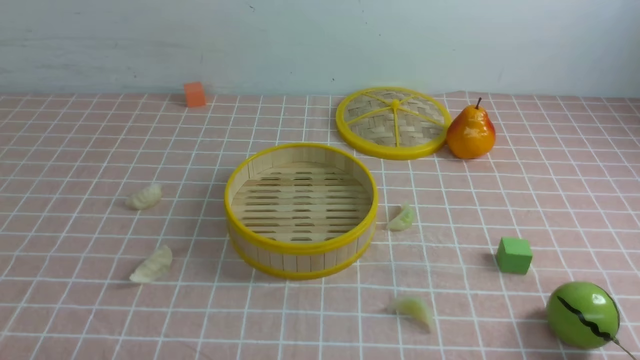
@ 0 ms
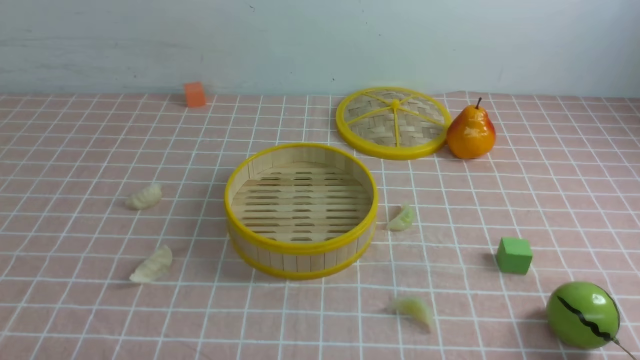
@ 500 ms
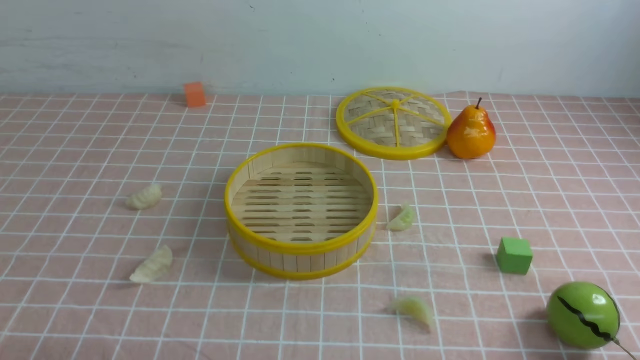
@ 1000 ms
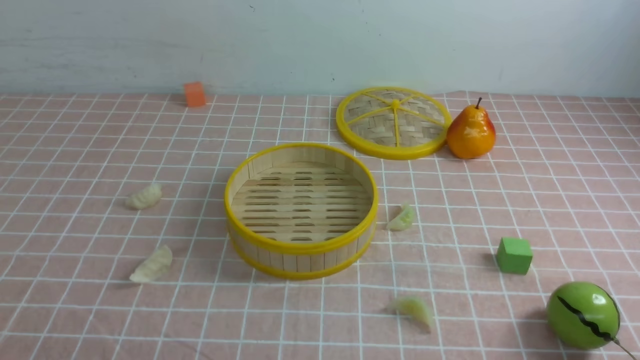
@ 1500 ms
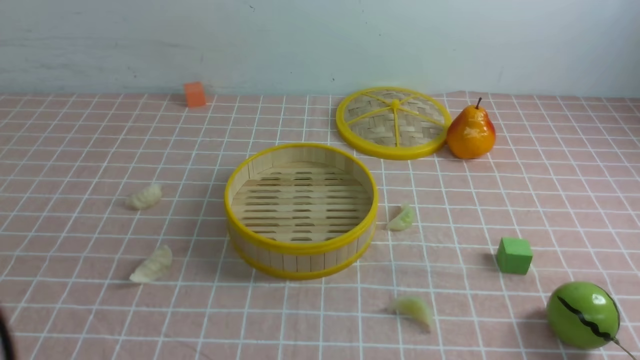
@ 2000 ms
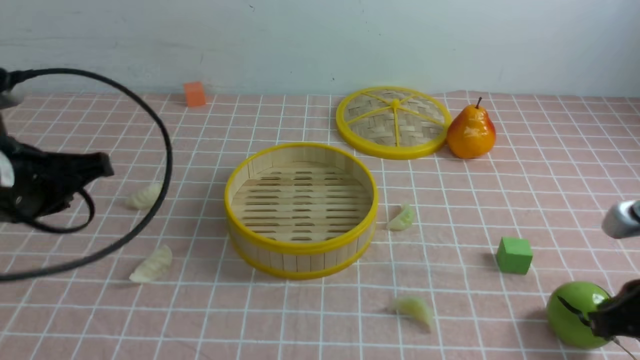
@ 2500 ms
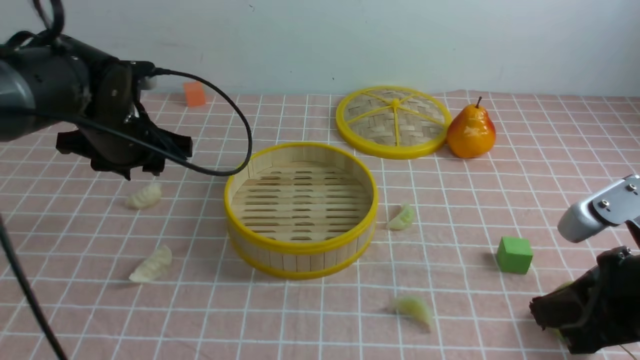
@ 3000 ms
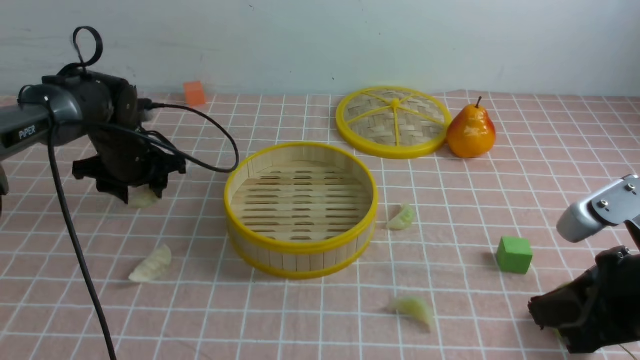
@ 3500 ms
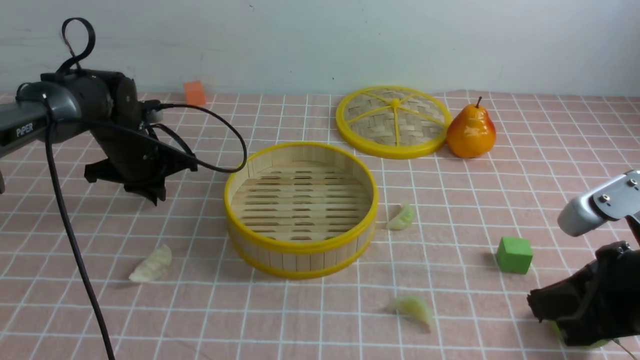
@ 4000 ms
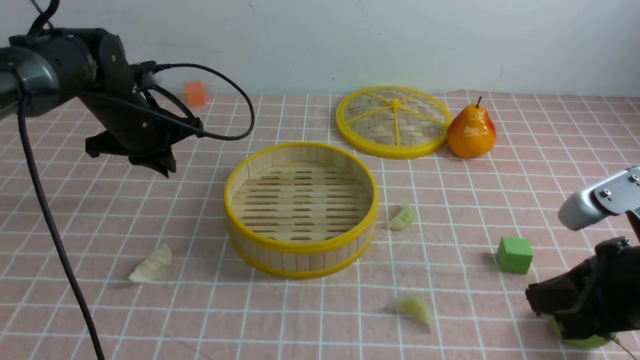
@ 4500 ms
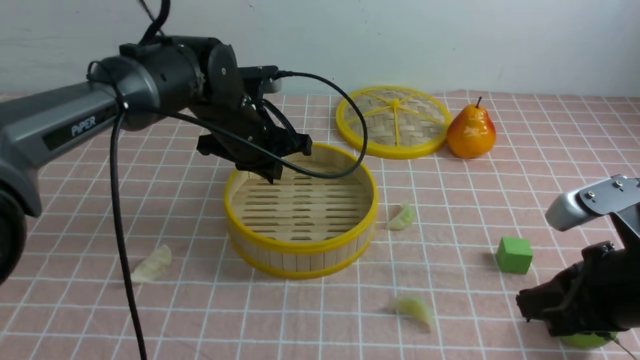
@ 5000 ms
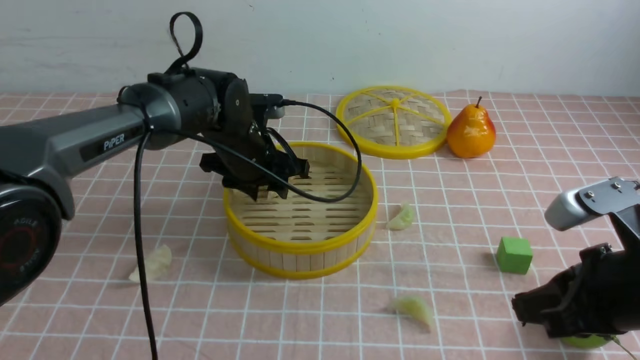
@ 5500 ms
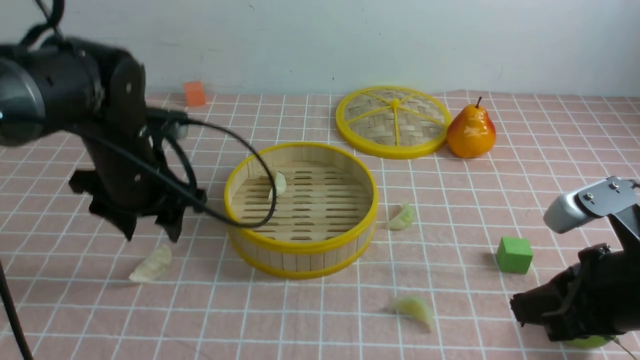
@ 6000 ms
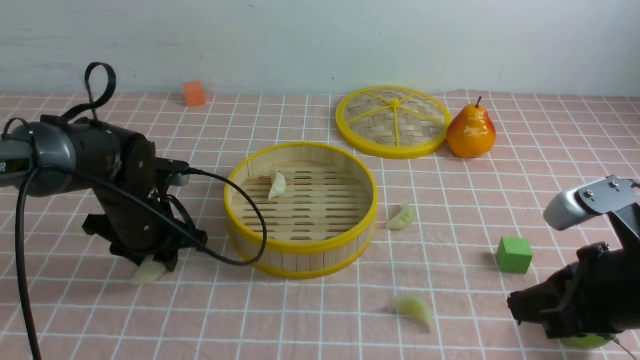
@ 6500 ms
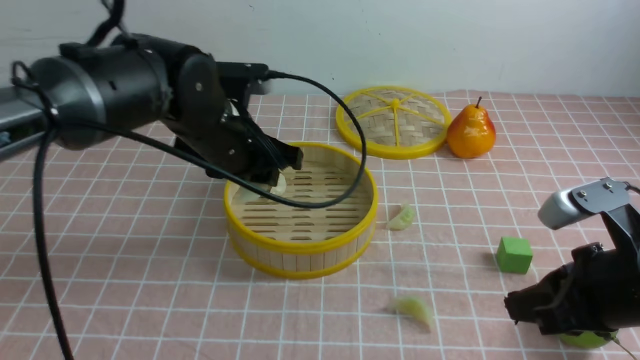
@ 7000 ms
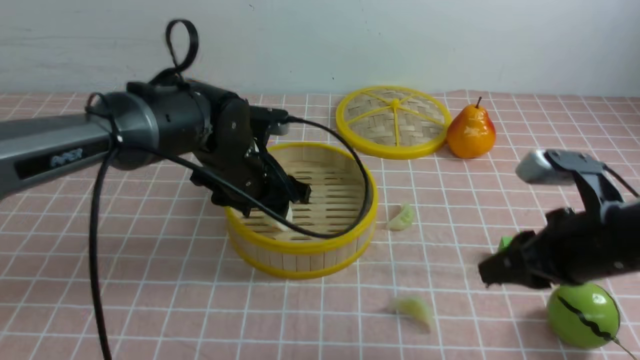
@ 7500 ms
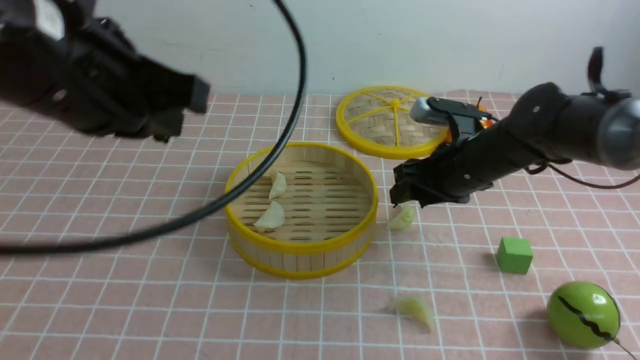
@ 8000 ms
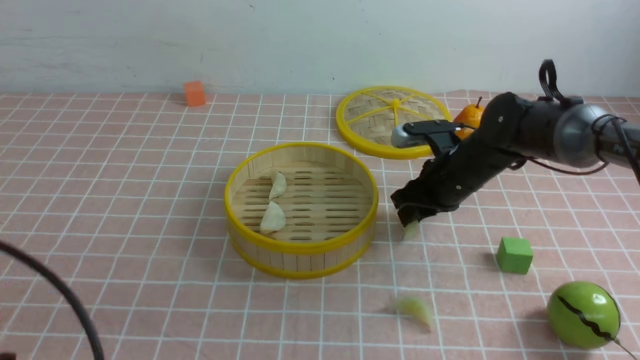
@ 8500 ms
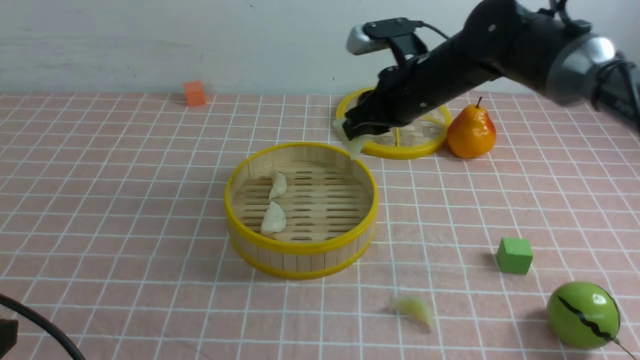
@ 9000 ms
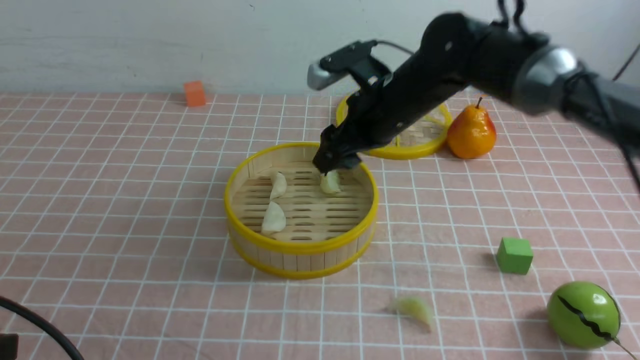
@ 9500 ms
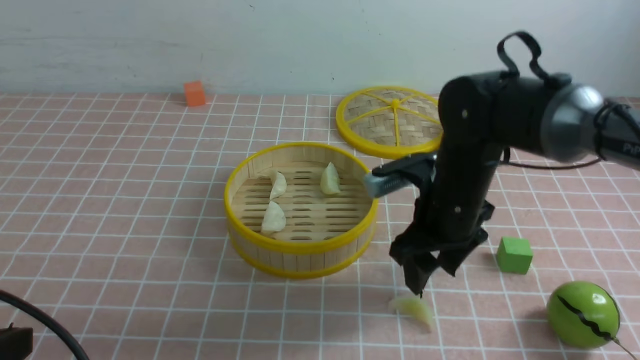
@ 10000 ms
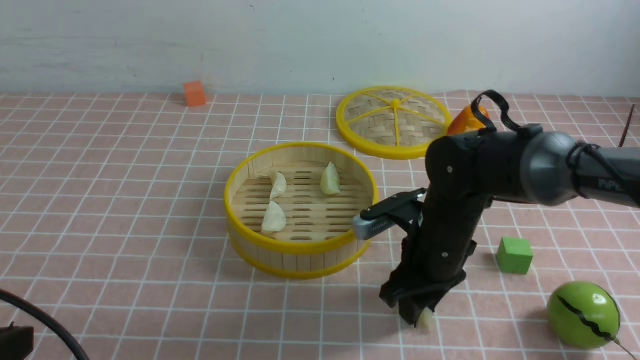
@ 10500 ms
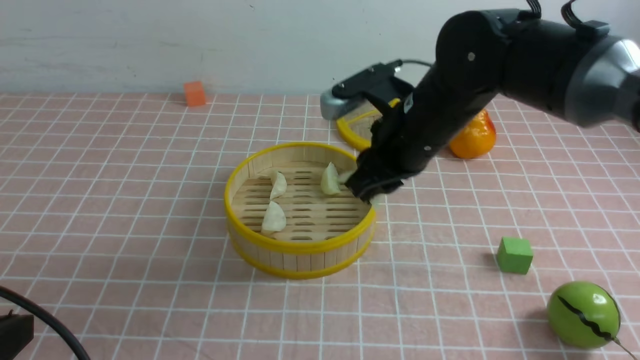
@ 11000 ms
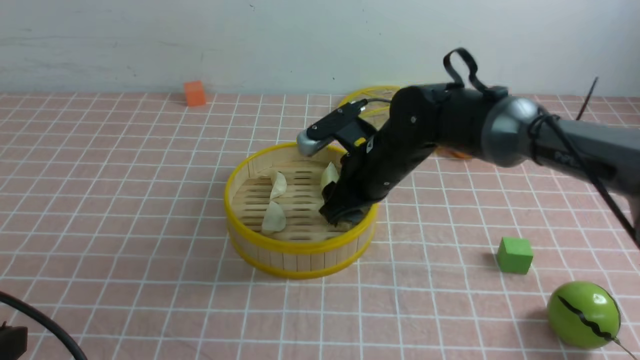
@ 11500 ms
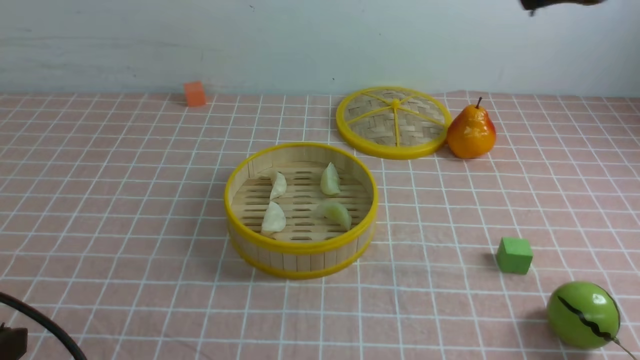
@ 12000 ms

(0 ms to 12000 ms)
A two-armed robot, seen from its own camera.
Task of the whole recording: put the dumplings into the steamer on the table with the pink tablecloth.
Step, 0 ms - 4000 ms: use the left arm to grab a dumpling.
Step, 4500 ms - 5000 ms: use the left arm to put the dumpling into the steamer.
Step, 5500 ms - 6500 ms: use the left arm to grab a dumpling.
Step, 7000 ms - 7500 ms: use the left arm to put the dumpling into the steamer.
Step, 8000 ms - 8500 ms: use the right arm to grab a dumpling.
Step, 10000 ms - 10500 ms: use the right arm to grab a dumpling.
Step, 11000 ms - 11500 ms: use the right arm to put the dumpling into the steamer.
2000 ms - 4000 ms: The right gripper heads forward, covering about 10 cm; the left gripper shifts approximately 35 cm forward, and opens, then closes again.
4000 ms - 6000 ms: The left gripper goes some 10 cm backward and to the right, and opens its fingers.
6000 ms - 8000 ms: The left gripper travels upward and backward by some 20 cm, and closes up. The right gripper is displaced forward by some 20 cm, and opens.
8000 ms - 10000 ms: The left gripper is displaced backward, downward and to the left by some 20 cm. The right gripper is displaced backward and to the left by about 10 cm, and closes, then opens again.
10000 ms - 12000 ms: The right gripper is displaced upward and backward by some 30 cm, and closes up.

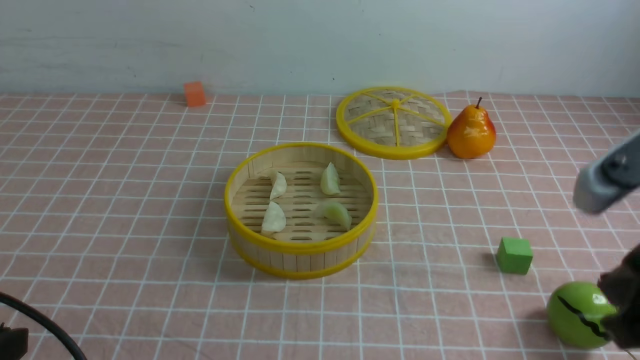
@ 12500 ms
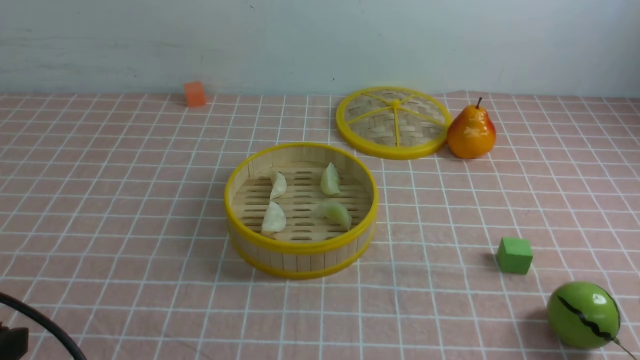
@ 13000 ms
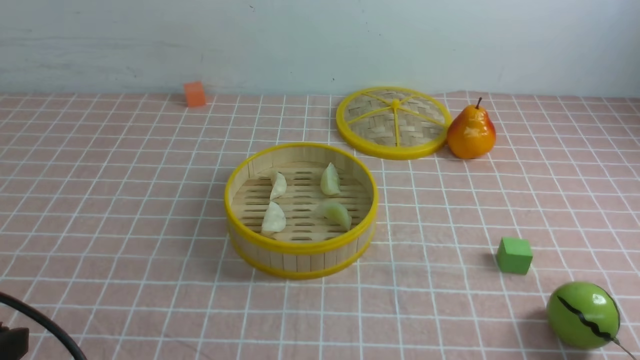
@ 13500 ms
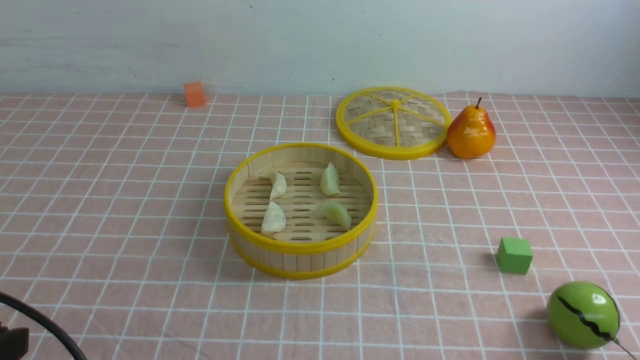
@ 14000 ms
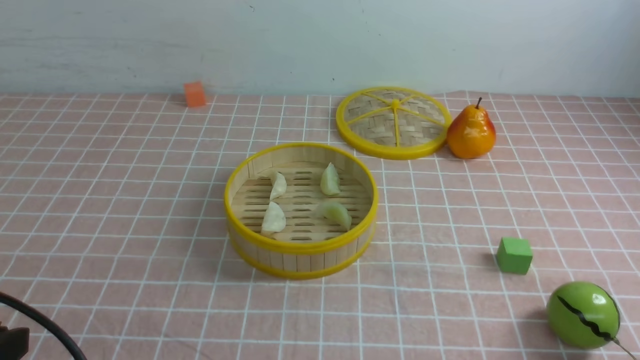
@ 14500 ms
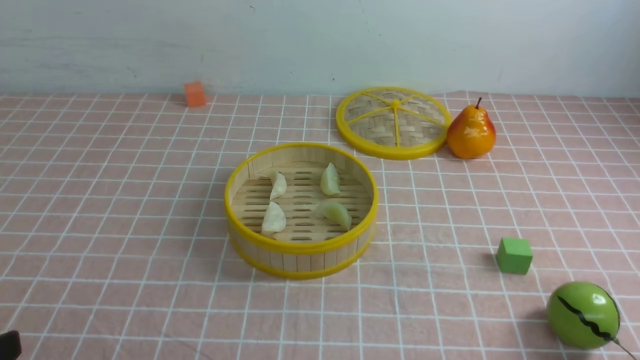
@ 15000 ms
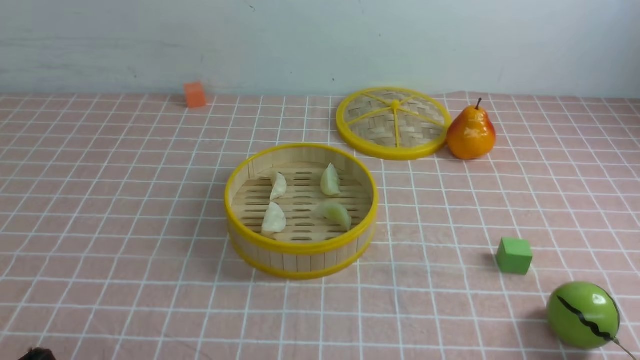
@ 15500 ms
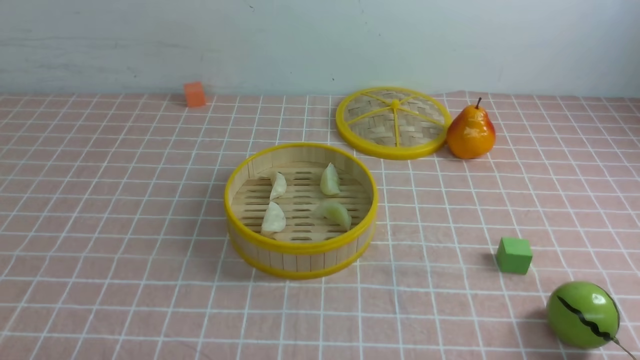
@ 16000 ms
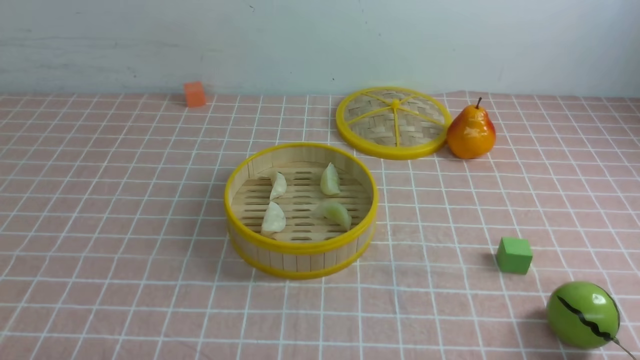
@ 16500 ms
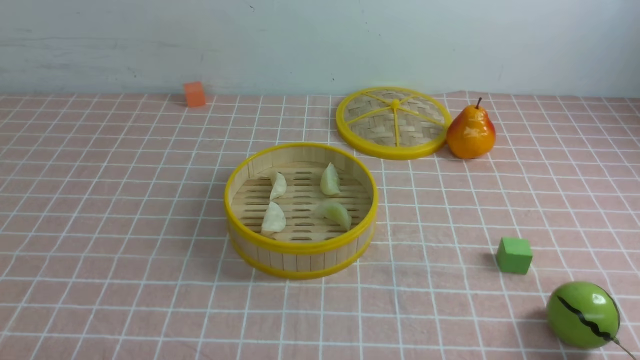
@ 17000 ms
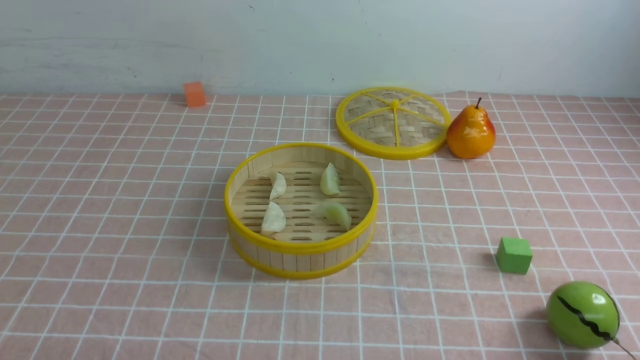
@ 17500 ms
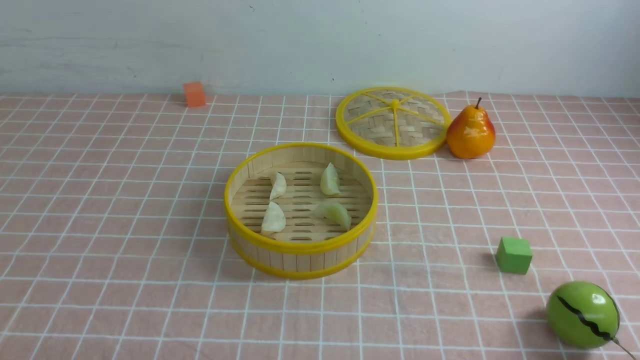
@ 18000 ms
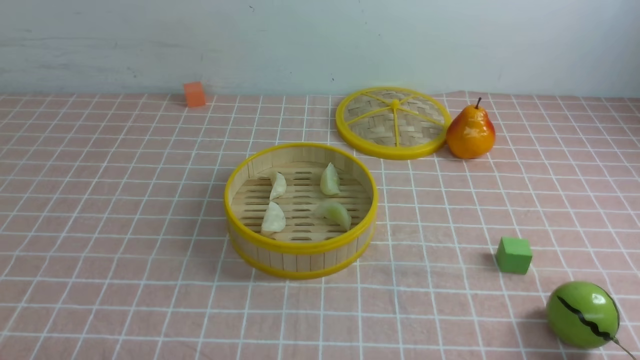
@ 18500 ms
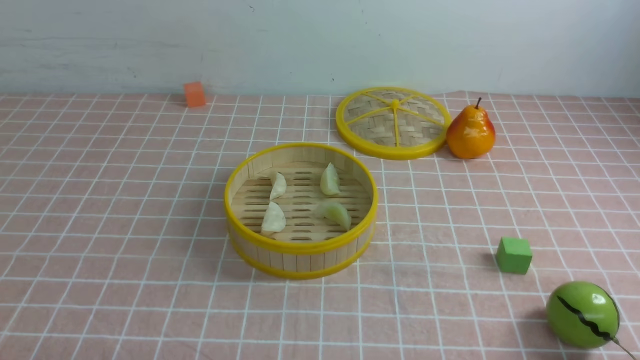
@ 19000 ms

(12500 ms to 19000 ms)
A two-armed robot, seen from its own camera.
Task of the whole recording: put the dumplings into the steamer on the table with the pink tablecloth.
12500 ms - 14500 ms: The right gripper shifts roughly 20 cm downward, backward and to the right.
14500 ms - 17000 ms: The left gripper travels downward by about 10 cm.
17000 ms - 19000 ms: Neither gripper changes place.

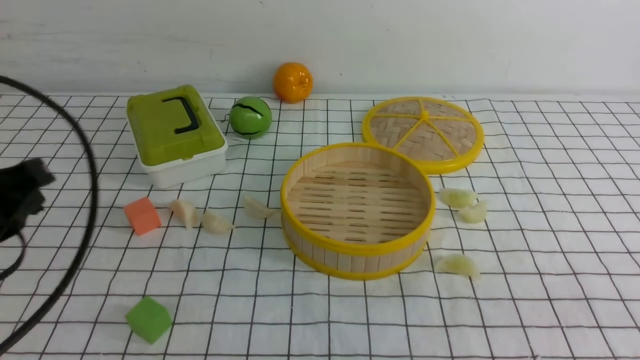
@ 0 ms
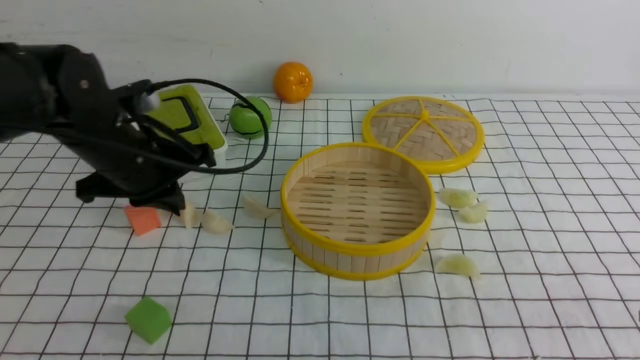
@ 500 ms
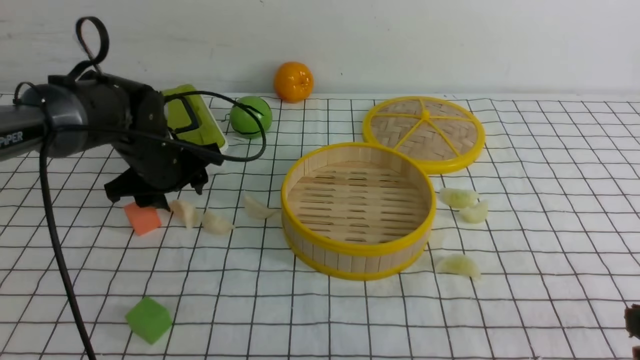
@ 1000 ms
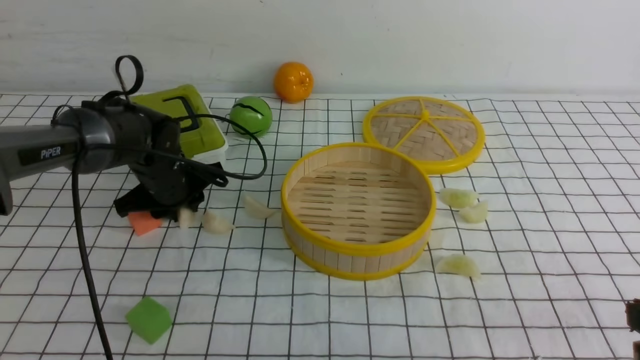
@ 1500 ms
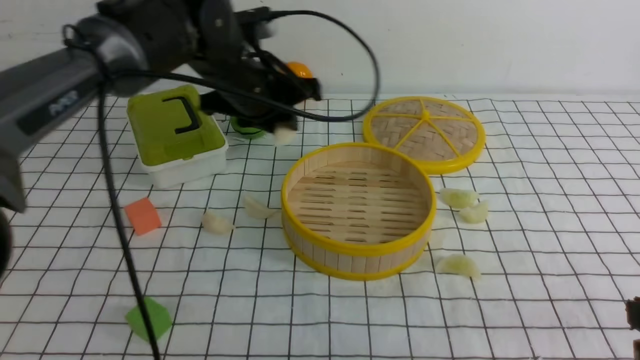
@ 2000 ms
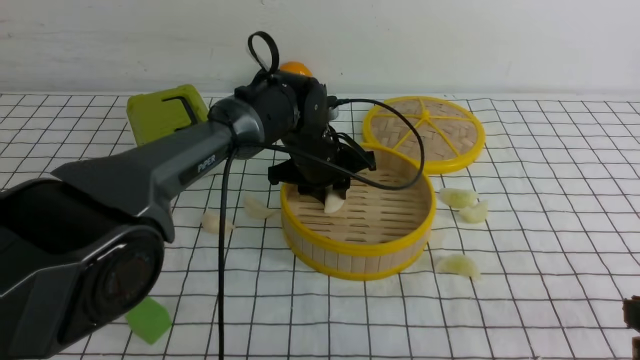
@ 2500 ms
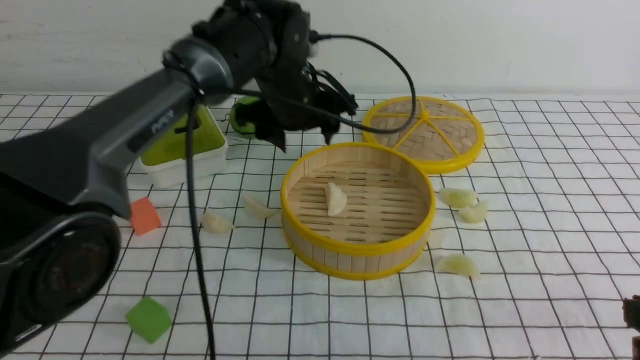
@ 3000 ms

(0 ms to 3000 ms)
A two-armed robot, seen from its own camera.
Task of the whole recording: put the dumplings into the steamer on the table with the white tablecloth.
Step, 0 ms - 2000 ms: use the left arm to grab a dumpling.
0 ms - 1500 ms: The left gripper heads forward and downward, covering approximately 30 cm, and opens up.
1500 ms - 3000 ms: The left gripper travels to the right and upward by about 15 cm, and opens up.
